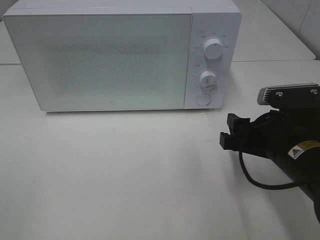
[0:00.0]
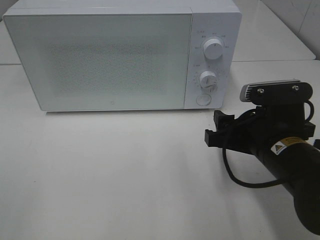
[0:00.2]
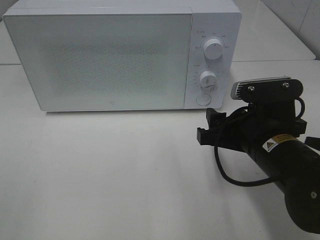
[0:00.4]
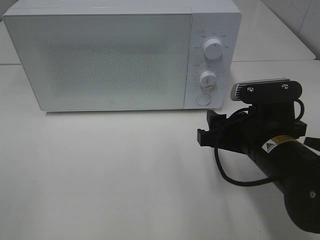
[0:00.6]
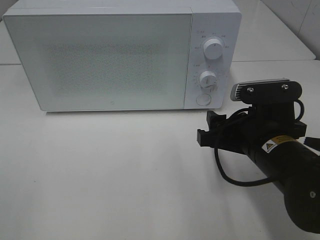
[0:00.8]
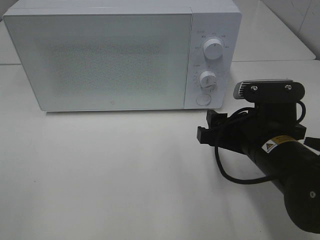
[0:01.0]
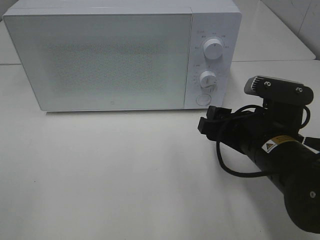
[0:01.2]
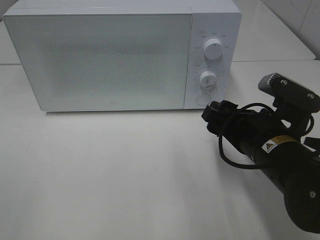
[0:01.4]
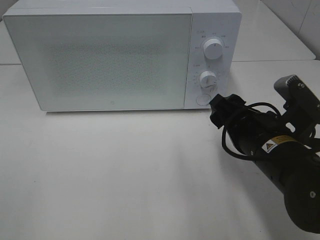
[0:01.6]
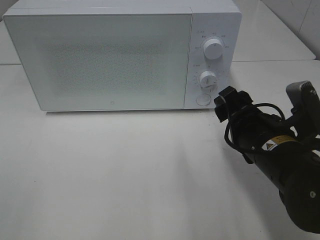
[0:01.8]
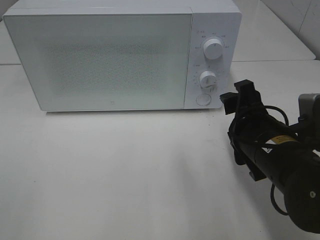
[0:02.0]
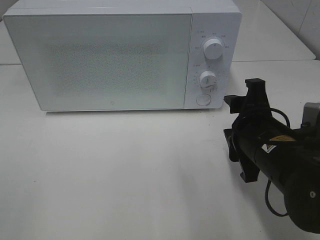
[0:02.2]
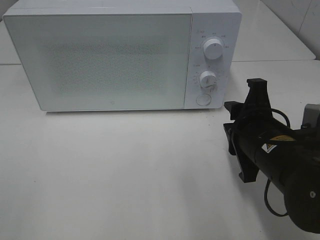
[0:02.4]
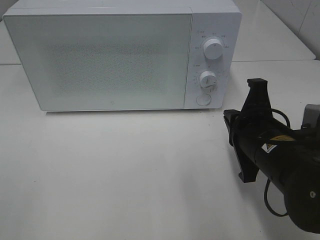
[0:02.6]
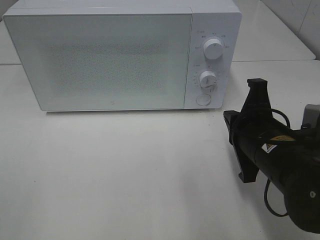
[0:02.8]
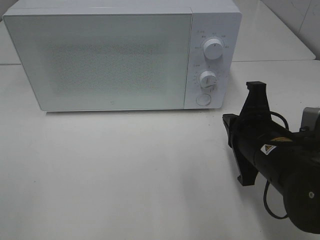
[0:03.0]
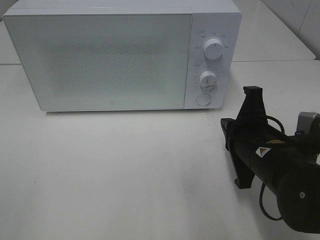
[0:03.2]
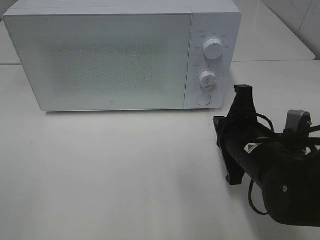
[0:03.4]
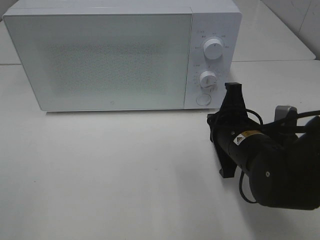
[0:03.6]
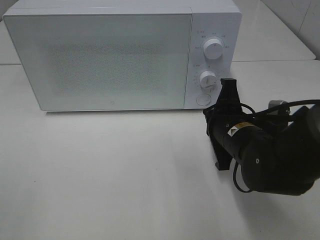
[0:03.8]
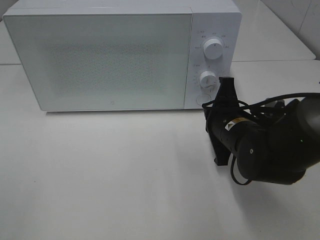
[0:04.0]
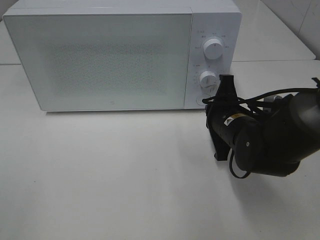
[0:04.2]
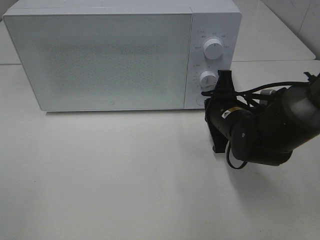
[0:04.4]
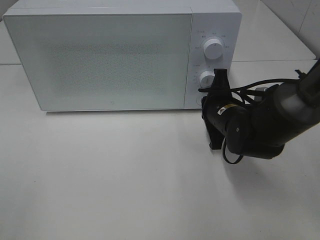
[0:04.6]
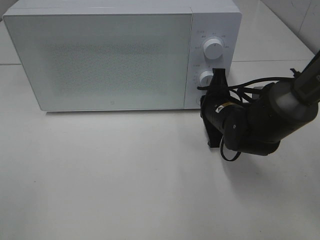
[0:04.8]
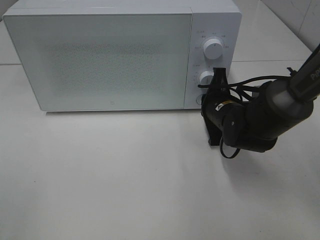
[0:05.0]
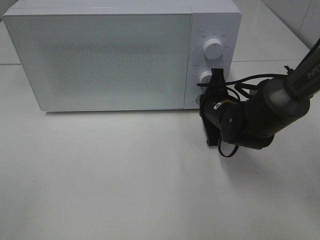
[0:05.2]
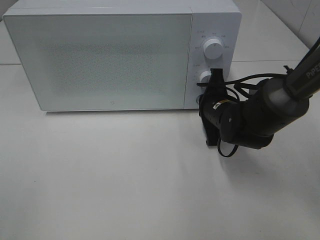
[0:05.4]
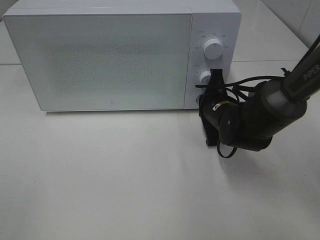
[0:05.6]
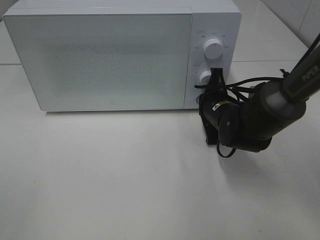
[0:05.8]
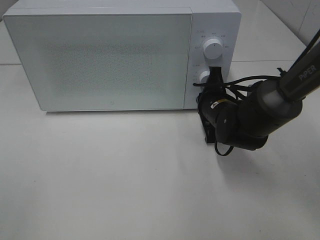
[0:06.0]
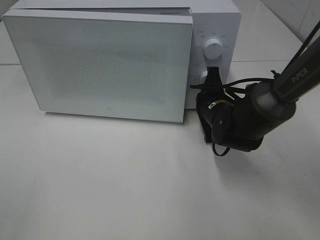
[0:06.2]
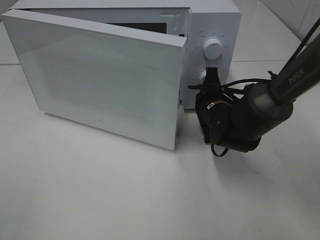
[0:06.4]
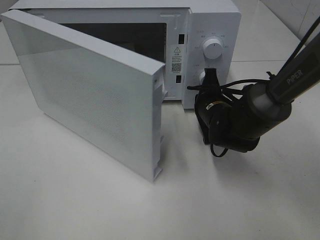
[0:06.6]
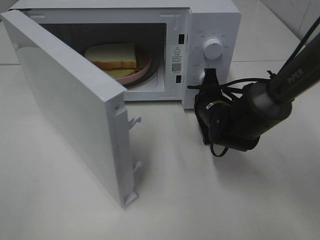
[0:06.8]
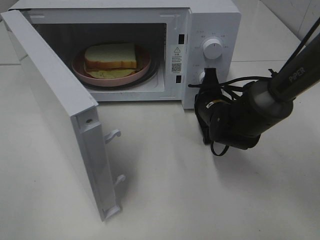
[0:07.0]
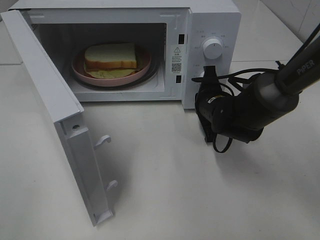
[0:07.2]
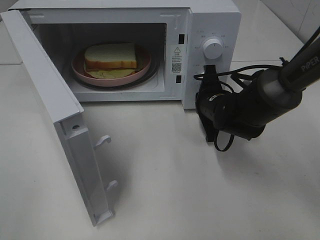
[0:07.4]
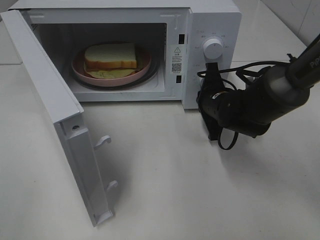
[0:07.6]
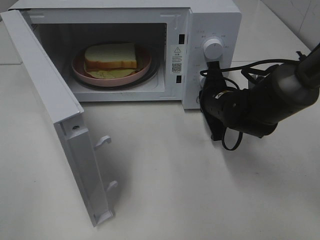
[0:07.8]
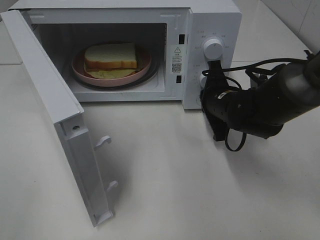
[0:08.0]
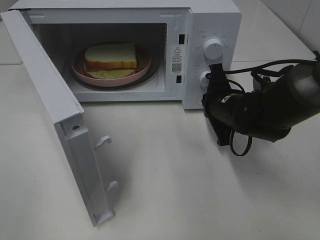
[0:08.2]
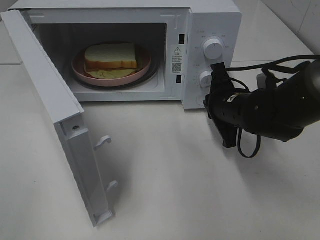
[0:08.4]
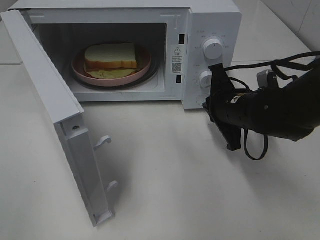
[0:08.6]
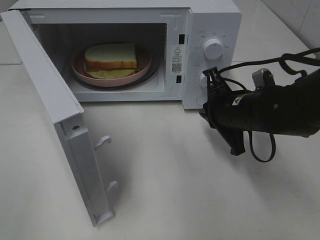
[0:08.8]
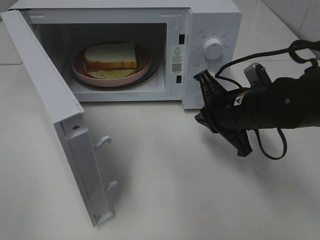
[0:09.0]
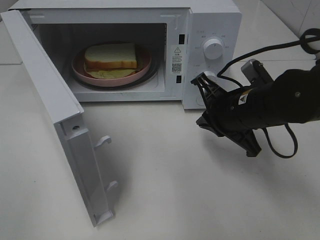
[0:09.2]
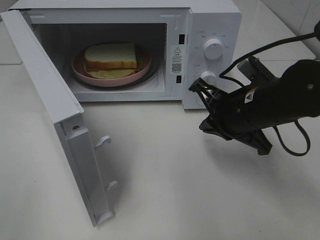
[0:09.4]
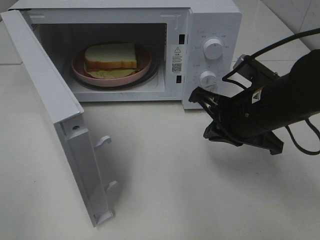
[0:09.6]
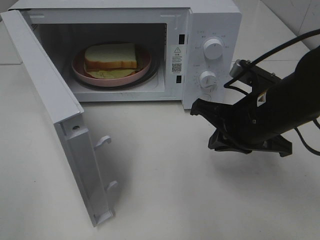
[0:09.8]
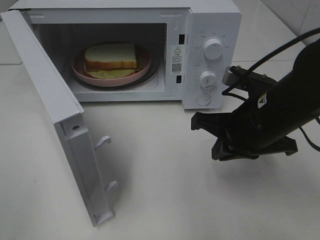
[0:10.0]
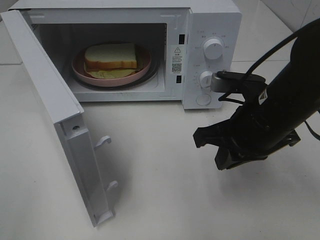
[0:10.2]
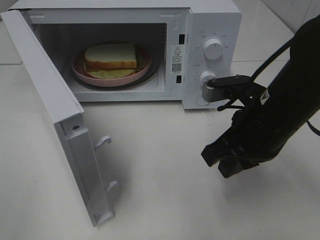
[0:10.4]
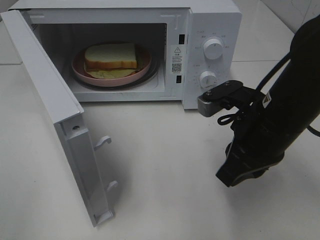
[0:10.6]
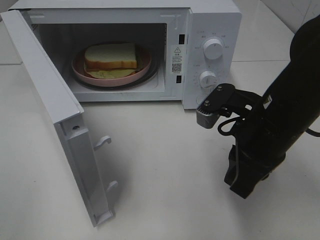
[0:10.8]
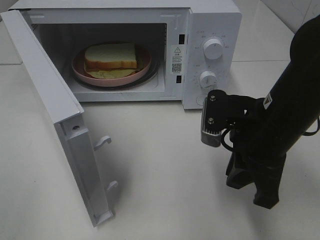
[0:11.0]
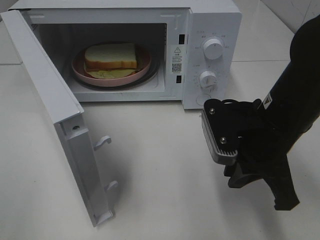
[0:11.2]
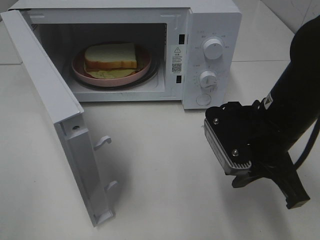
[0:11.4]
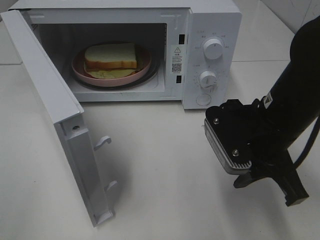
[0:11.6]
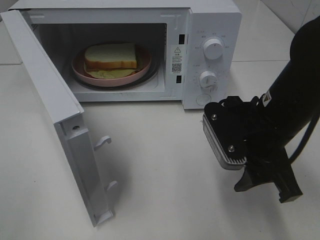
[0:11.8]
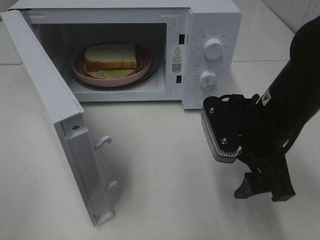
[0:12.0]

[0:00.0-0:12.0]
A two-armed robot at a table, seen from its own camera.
Task of the whole recording: Heat Sandwich.
Step, 0:00.0 to 0:08.0: Right hand: press the switch.
0:01.6 to 0:03.0: The right gripper closes its fingers.
0:03.0 to 0:04.4: The right gripper heads forward, covering roughly 10 cm.
0:04.4 to 0:06.0: There are only small adjustments of the grippers.
0:07.6 to 0:09.0: The right gripper shifts about 5 cm backward.
0:09.0 to 0:10.4: The right gripper moves backward, some 5 cm.
0:10.4 to 0:12.0: The right gripper opens up.

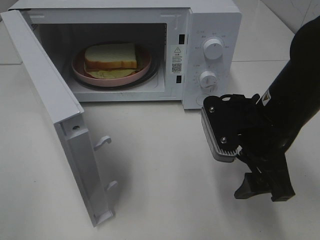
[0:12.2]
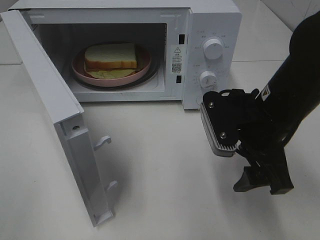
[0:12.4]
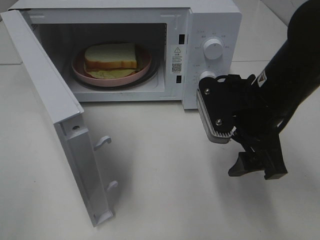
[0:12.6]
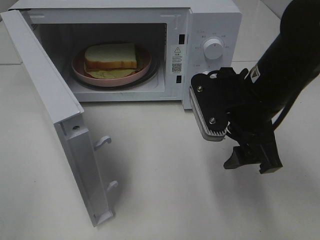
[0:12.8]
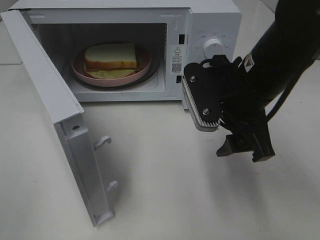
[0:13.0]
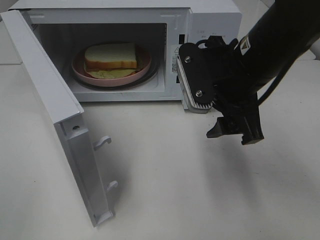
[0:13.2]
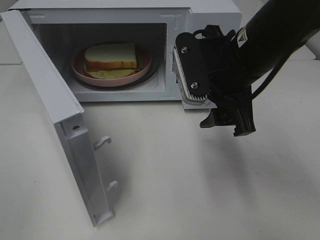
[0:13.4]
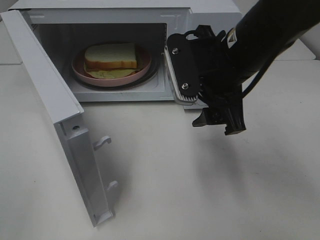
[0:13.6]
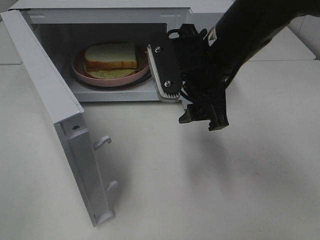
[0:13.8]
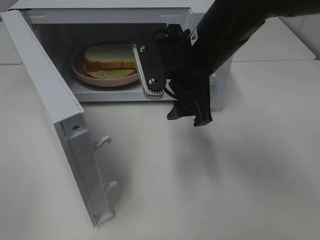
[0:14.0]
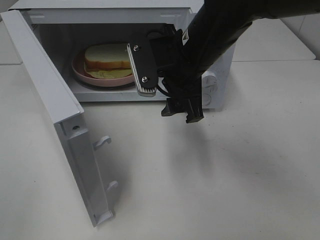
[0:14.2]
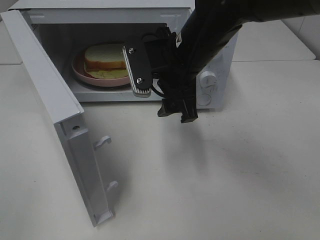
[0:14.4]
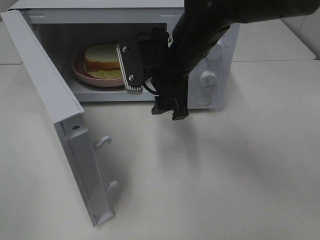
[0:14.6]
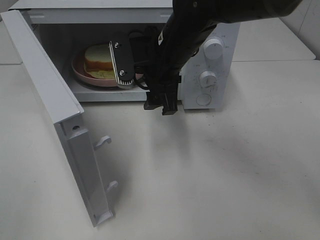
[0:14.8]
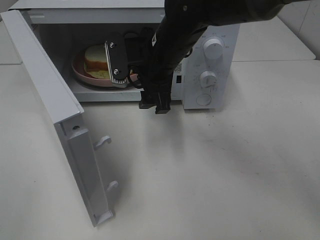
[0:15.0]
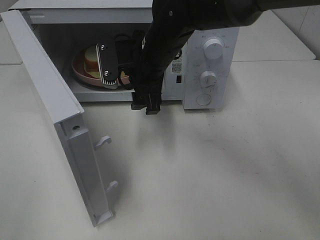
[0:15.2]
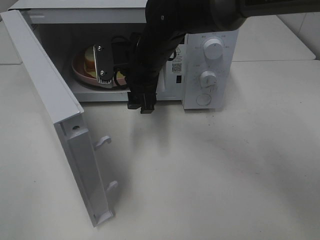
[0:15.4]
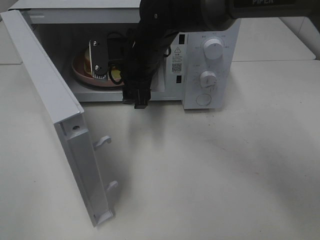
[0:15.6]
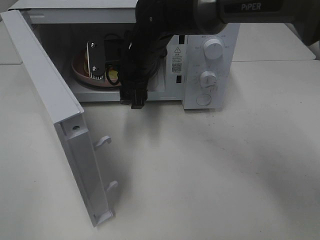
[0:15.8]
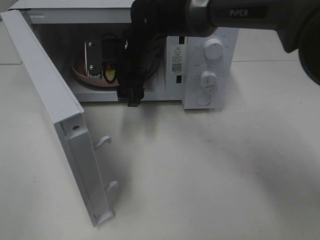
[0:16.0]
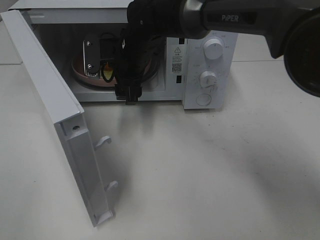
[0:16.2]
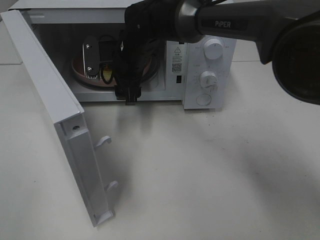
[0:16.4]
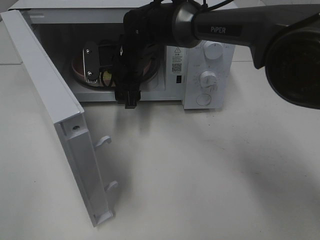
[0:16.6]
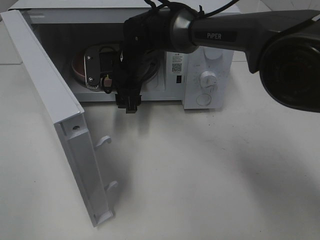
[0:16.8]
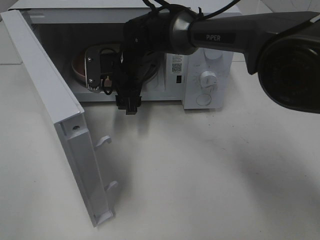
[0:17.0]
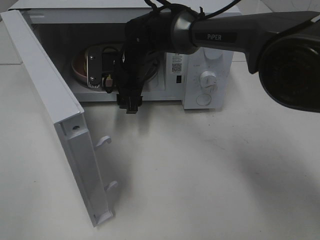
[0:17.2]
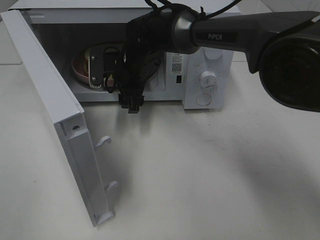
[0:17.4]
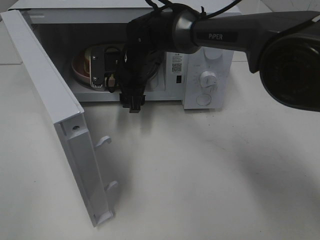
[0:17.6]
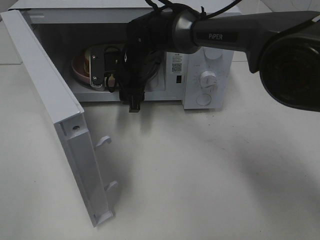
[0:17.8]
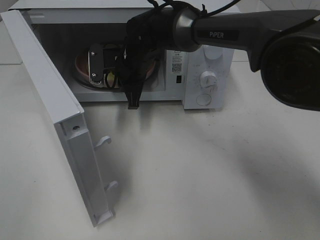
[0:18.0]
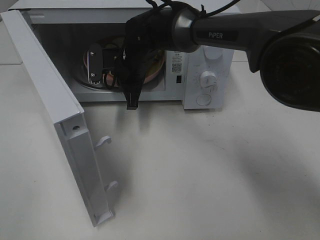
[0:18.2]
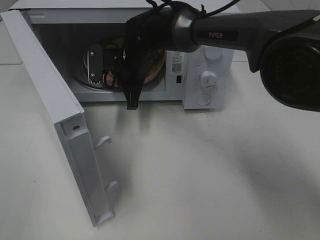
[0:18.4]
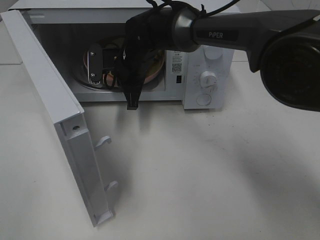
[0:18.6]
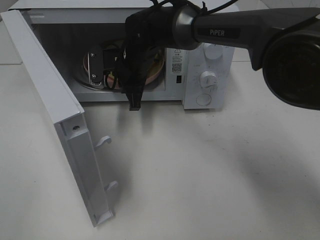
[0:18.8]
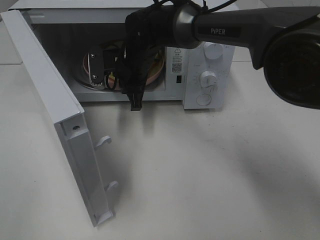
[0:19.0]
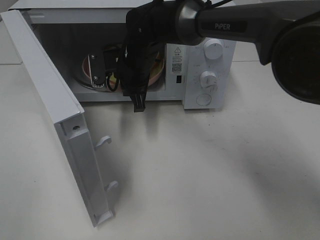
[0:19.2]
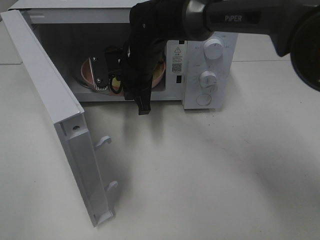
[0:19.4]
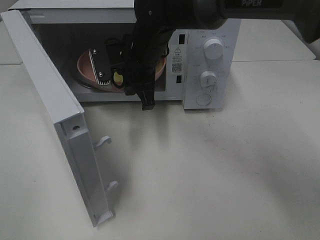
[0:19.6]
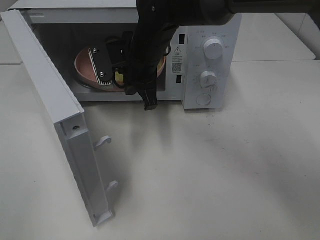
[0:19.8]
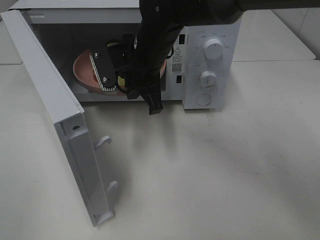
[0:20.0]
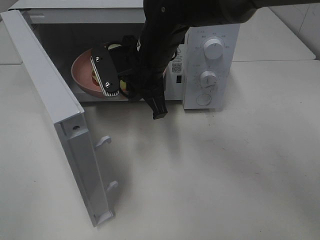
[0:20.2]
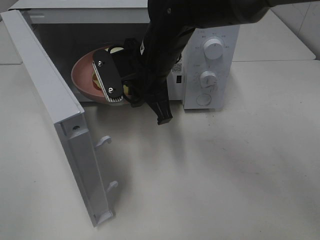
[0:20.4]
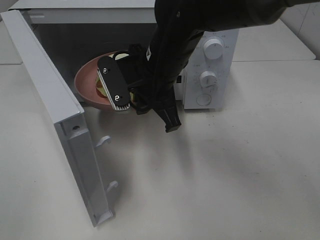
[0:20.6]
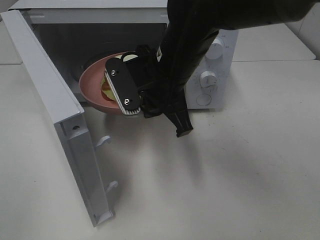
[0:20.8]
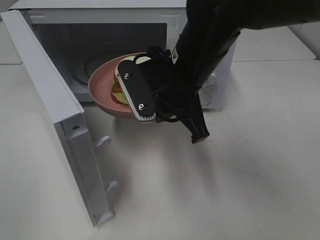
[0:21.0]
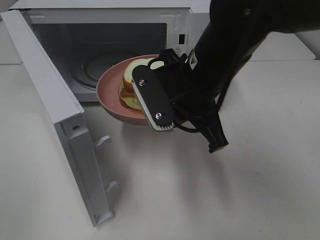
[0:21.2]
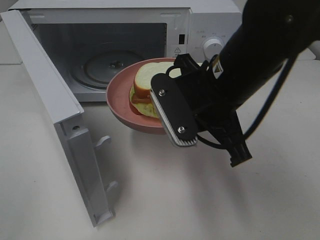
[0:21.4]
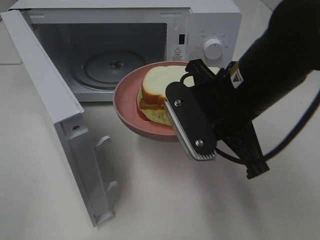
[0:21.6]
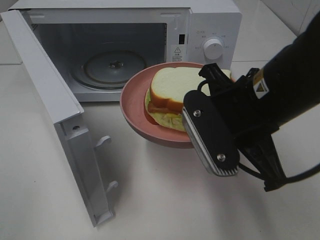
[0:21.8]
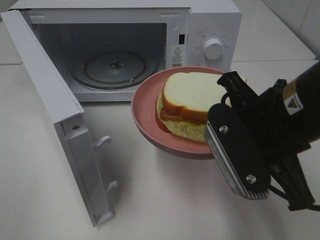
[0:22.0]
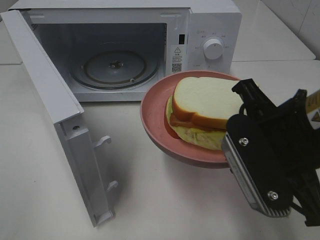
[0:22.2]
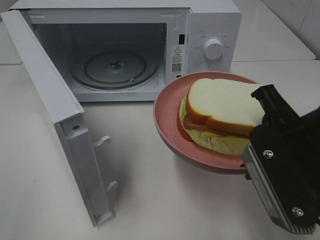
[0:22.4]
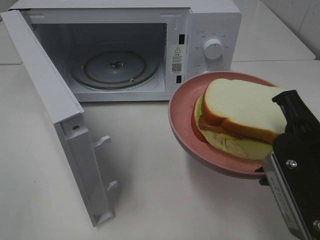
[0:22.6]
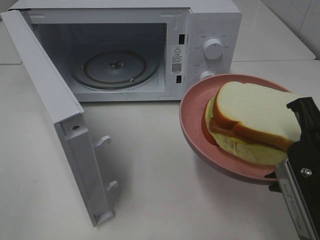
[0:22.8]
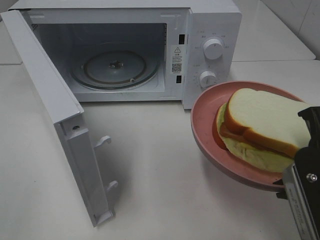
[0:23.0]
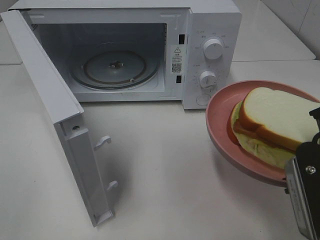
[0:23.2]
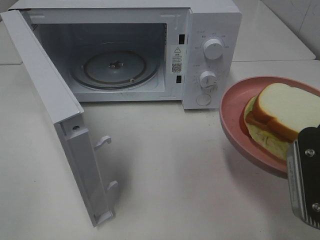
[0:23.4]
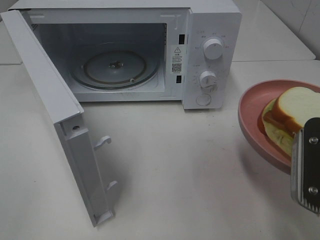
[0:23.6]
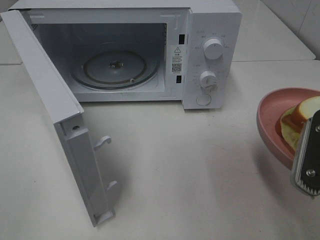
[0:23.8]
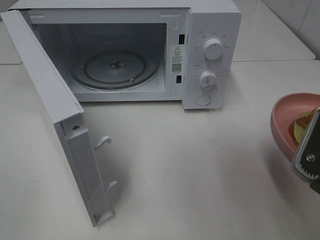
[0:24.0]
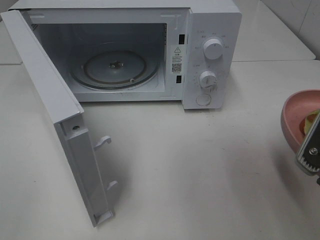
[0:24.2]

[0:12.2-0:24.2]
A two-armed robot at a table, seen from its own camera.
Task of the whole recording: Heat Sandwich.
Step, 0:12.2 to 0:18.2: Right hand: grab the plate with the sandwich.
0:12.2 to 0:13.8: The right gripper goes some 10 cm to the left, upward and forward.
0:13.8 to 0:15.2: The right gripper is displaced forward and to the left by approximately 10 cm.
0:15.2 to 0:16.6: The right gripper is displaced forward by approximately 5 cm.
0:16.6 to 0:18.2: The right gripper closes up.
0:18.2 to 0:19.8: The right gripper moves backward, some 5 cm.
0:19.8 to 0:21.2: The right gripper goes some 15 cm backward and to the right.
0:21.2 to 0:22.6: The right gripper heads backward and to the right, covering some 20 cm.
